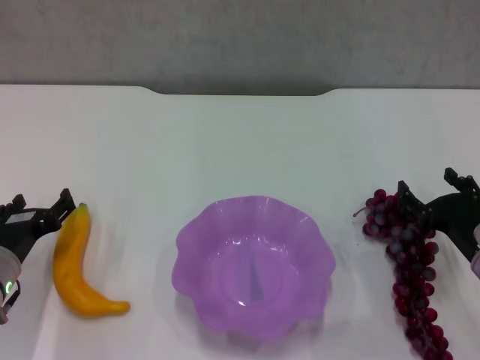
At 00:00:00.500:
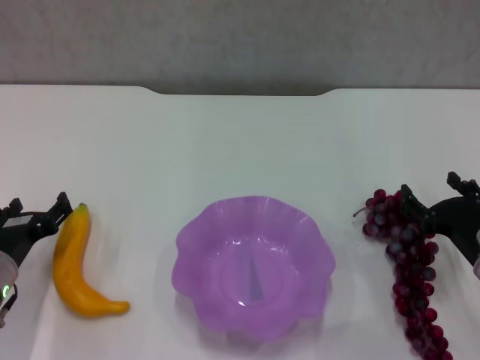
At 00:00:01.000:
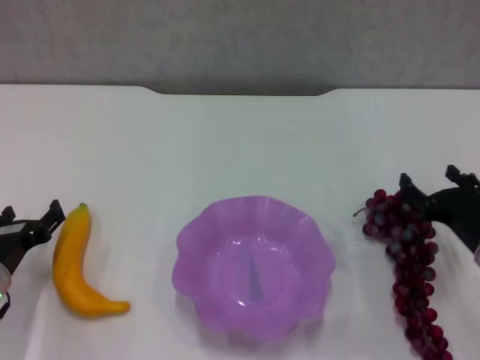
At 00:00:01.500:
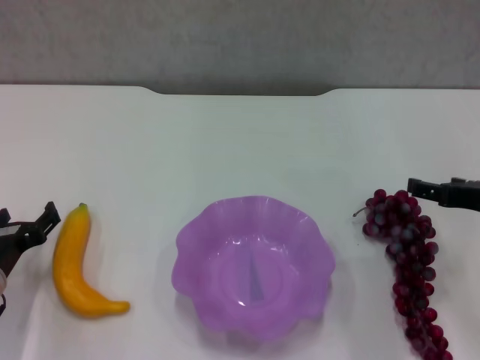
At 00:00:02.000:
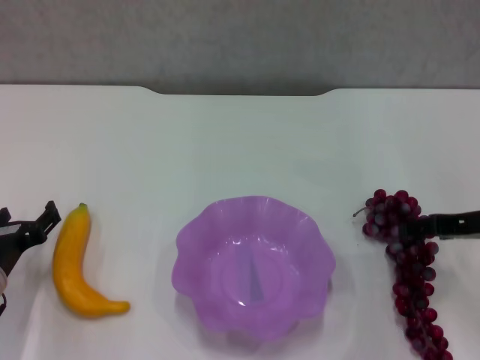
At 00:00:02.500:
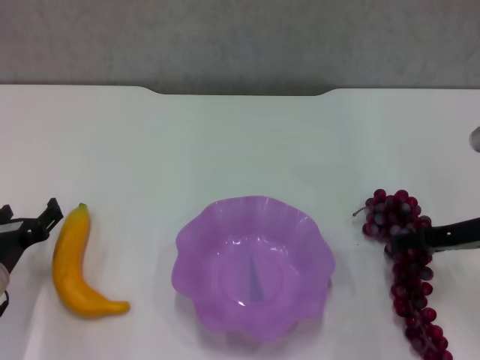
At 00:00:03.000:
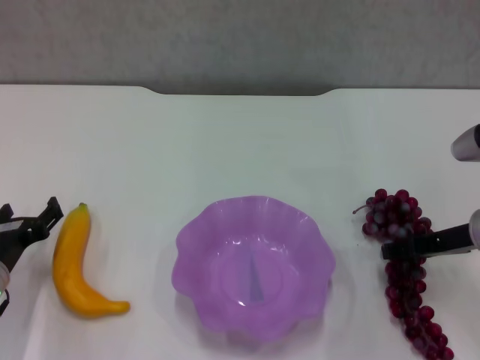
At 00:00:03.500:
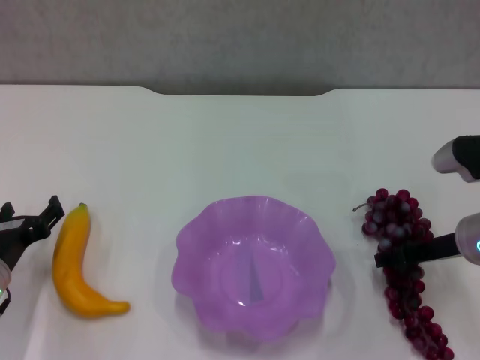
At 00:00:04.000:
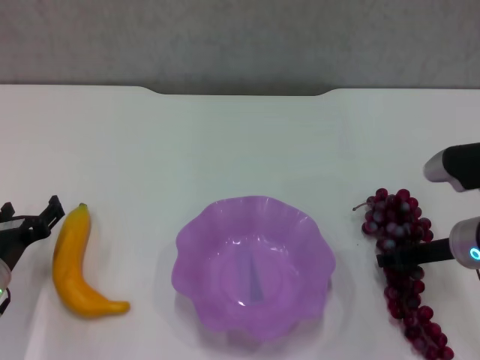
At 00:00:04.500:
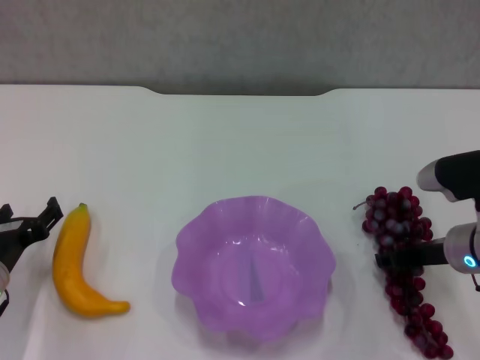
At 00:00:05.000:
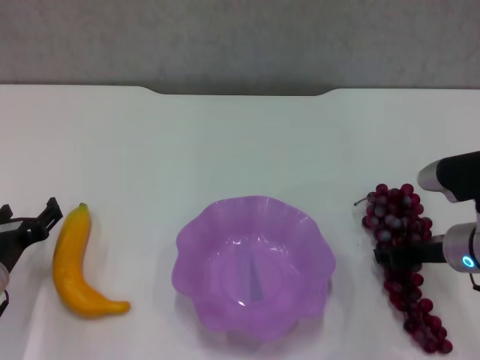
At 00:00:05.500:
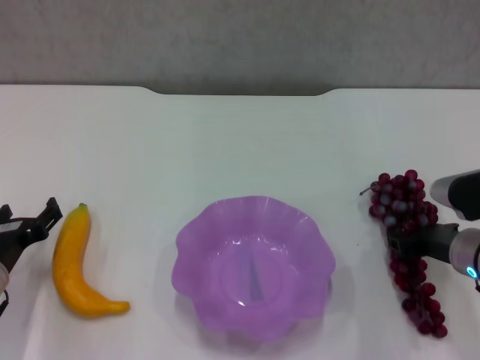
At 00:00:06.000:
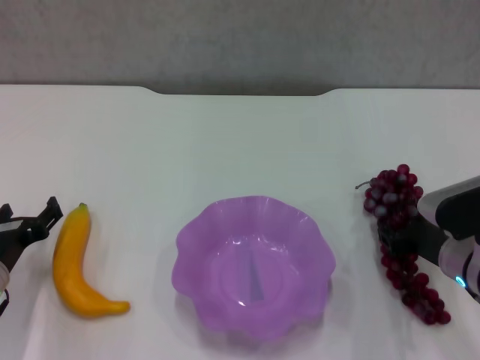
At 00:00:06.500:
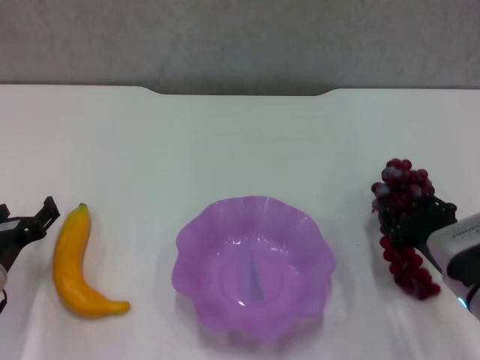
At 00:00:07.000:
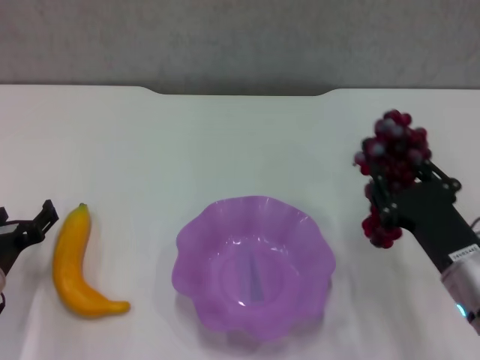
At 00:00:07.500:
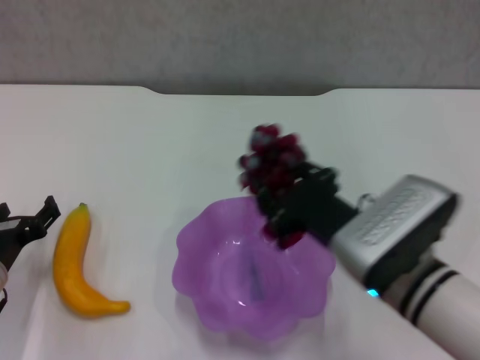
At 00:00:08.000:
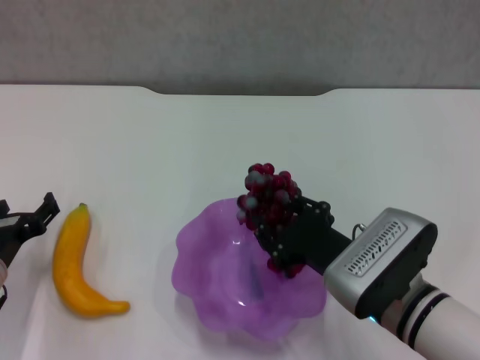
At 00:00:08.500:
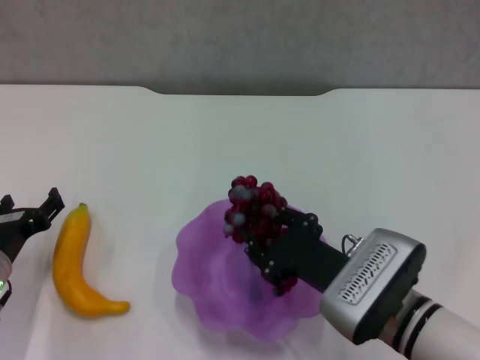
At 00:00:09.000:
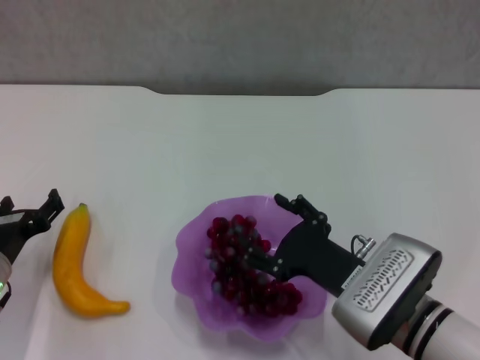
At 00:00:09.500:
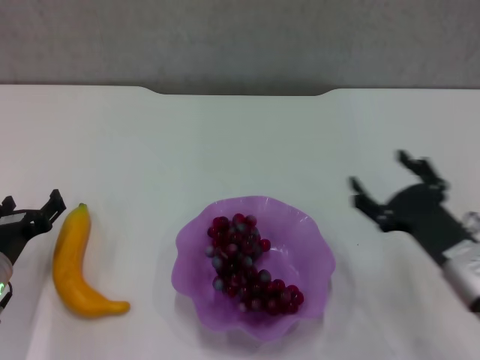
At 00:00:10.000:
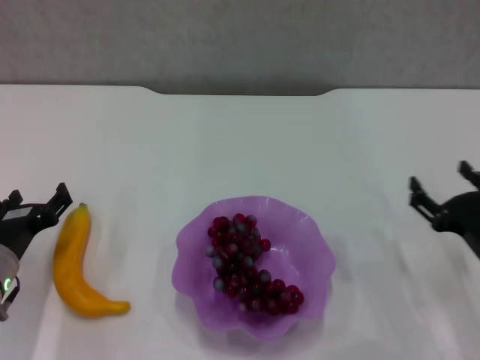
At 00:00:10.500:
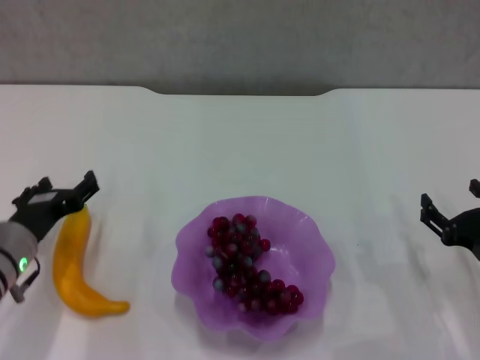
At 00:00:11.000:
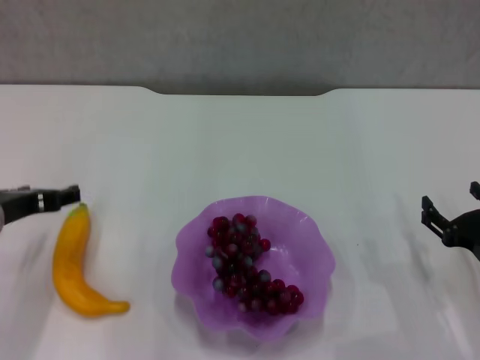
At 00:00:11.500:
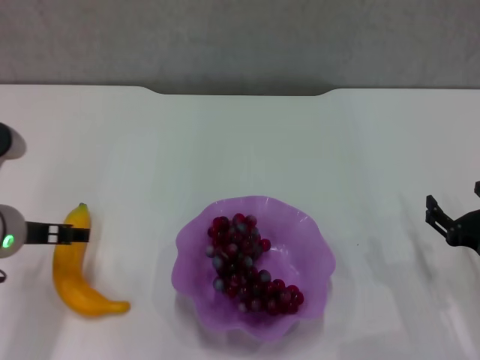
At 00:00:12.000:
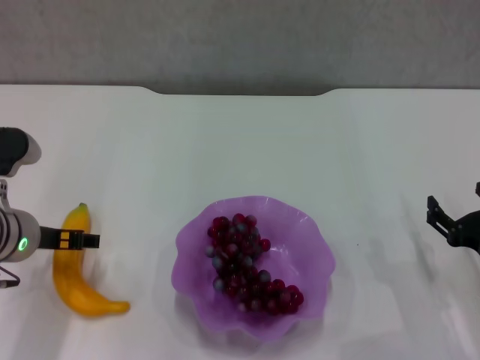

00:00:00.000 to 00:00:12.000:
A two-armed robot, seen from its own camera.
Step, 00:00:00.000 to 00:00:05.000: Grasp the grape with right gripper.
Step, 00:00:05.500 to 00:00:09.000: Place the grape in the purple plate with right gripper.
00:00:00.000 to 00:00:02.000: The right gripper moves upward, some 10 cm.
00:00:02.000 to 00:00:04.000: The right gripper goes approximately 5 cm downward.
00:00:04.000 to 00:00:06.000: The right gripper closes.
00:00:06.000 to 00:00:08.000: The right gripper is displaced to the left and backward by approximately 10 cm.
00:00:08.000 to 00:00:10.000: The right gripper goes about 15 cm to the right, and opens.
00:00:10.000 to 00:00:12.000: The left gripper moves upward, about 10 cm.

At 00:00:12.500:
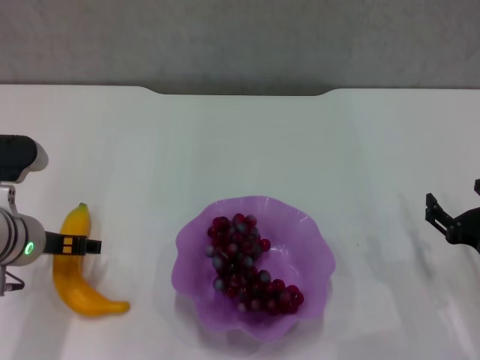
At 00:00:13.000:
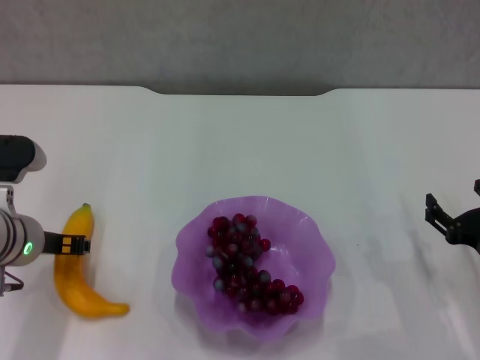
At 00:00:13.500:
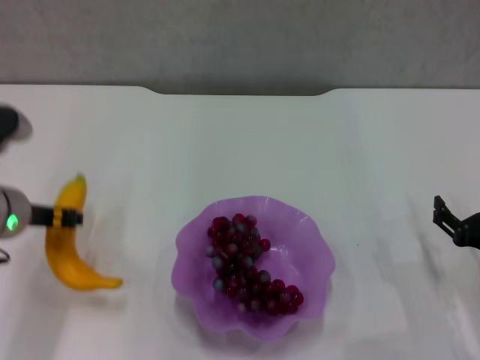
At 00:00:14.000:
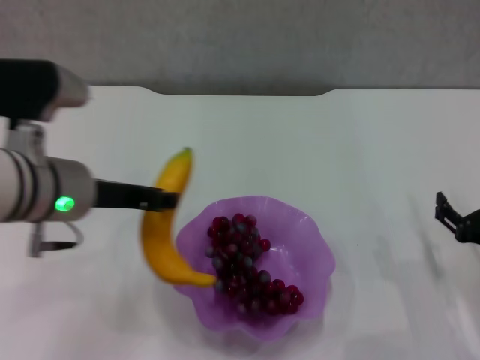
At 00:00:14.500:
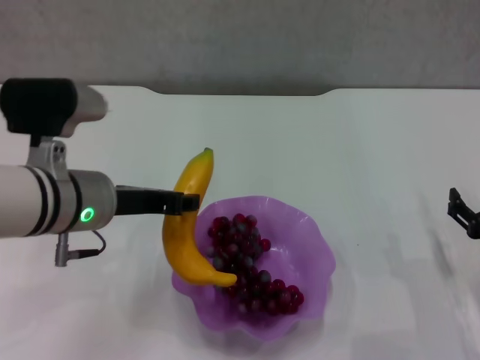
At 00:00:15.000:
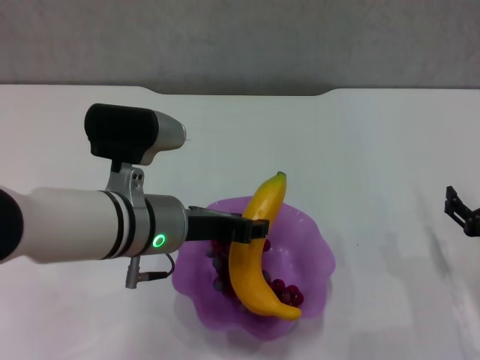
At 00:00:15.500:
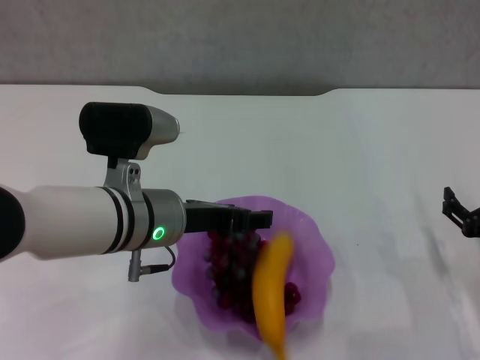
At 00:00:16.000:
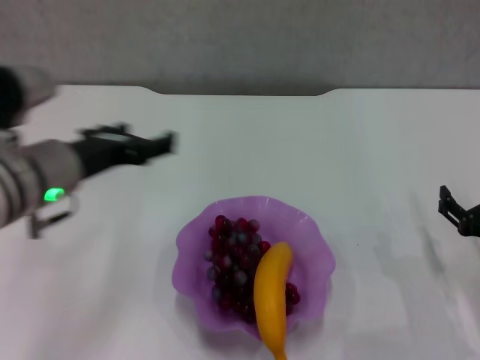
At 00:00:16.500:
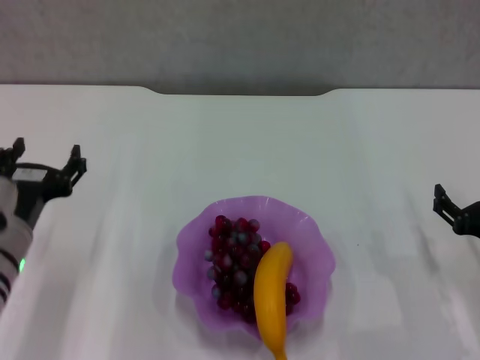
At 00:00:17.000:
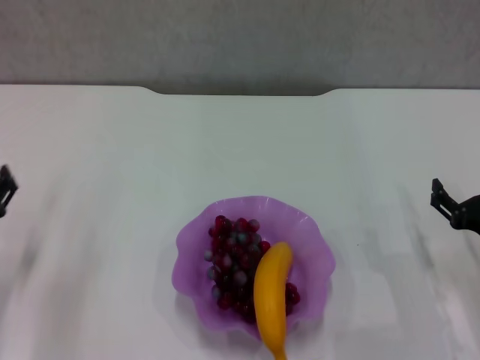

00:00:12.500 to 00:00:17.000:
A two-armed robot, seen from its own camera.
Step, 00:00:13.500 to 00:00:15.500: Place the banana in the purple plate with left gripper.
00:00:12.500 to 00:00:14.500: The left gripper travels to the right and upward by some 10 cm, and closes up.
00:00:14.500 to 00:00:17.000: The left gripper shifts roughly 20 cm to the left and downward, and opens.
